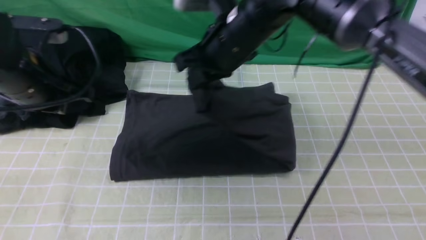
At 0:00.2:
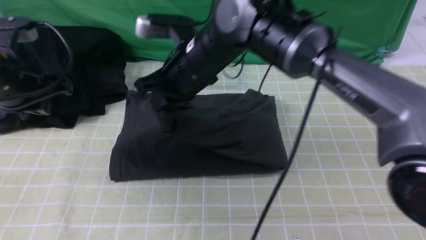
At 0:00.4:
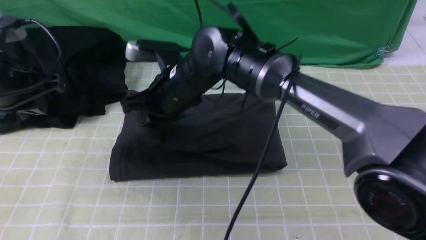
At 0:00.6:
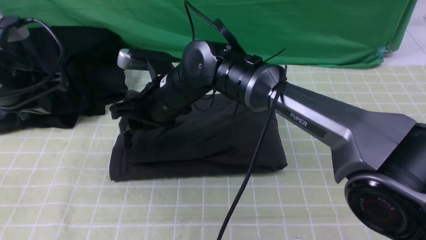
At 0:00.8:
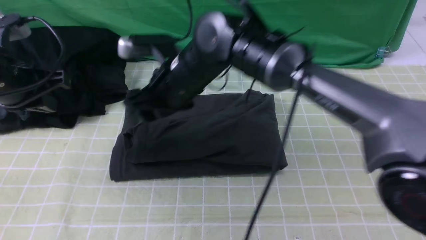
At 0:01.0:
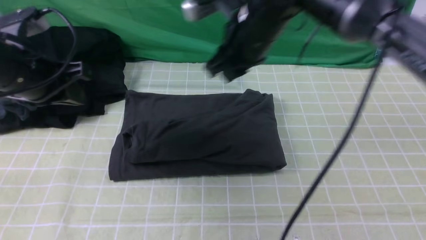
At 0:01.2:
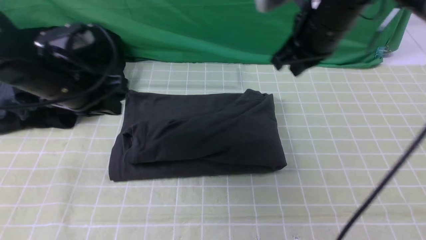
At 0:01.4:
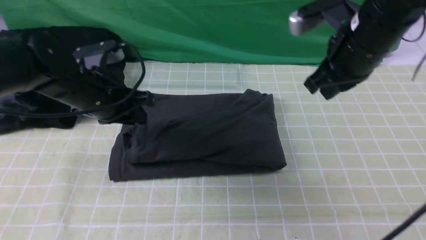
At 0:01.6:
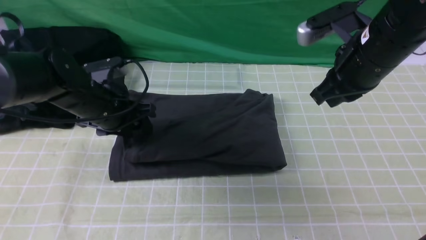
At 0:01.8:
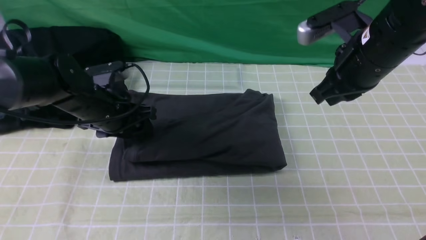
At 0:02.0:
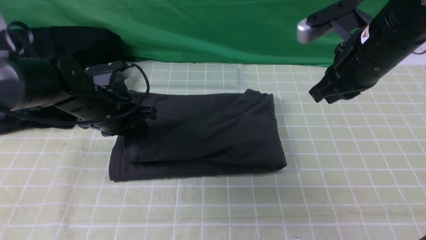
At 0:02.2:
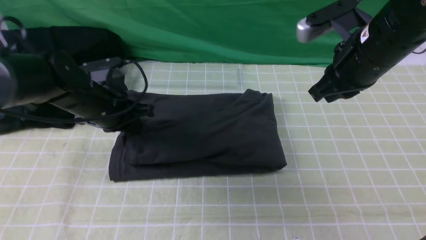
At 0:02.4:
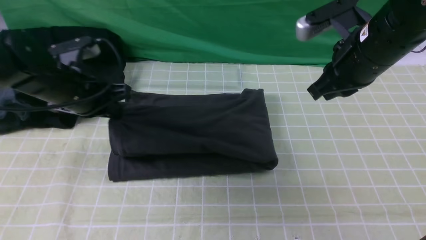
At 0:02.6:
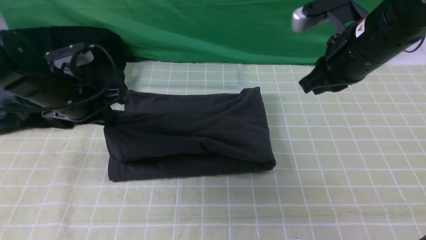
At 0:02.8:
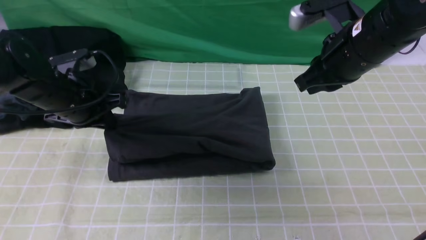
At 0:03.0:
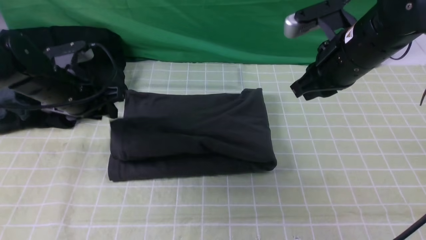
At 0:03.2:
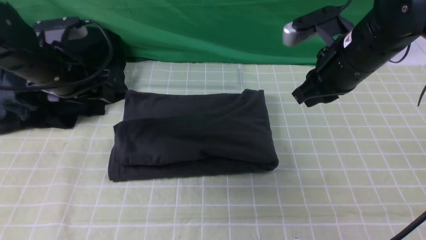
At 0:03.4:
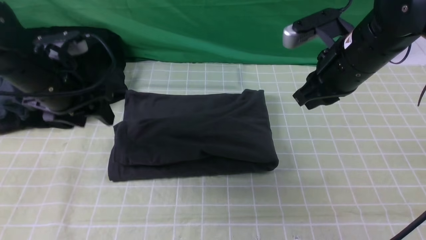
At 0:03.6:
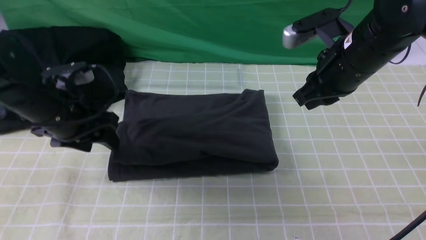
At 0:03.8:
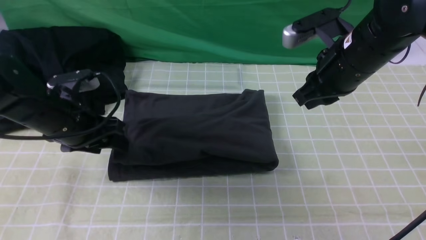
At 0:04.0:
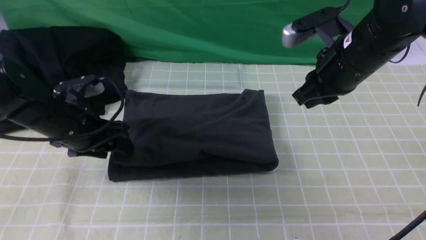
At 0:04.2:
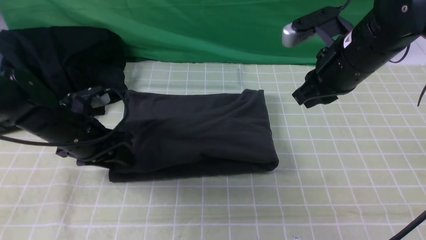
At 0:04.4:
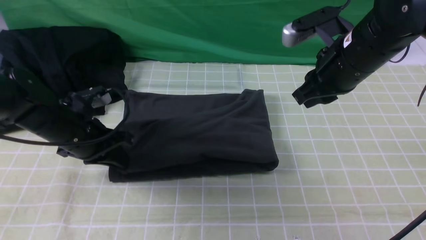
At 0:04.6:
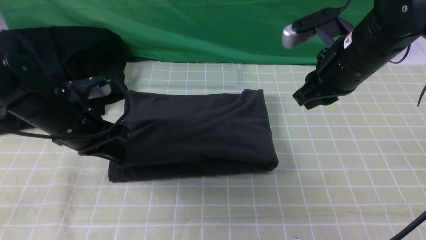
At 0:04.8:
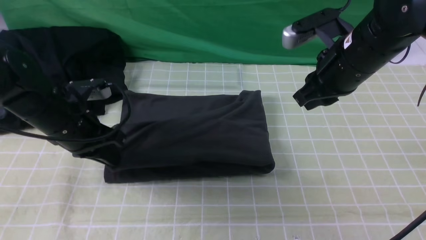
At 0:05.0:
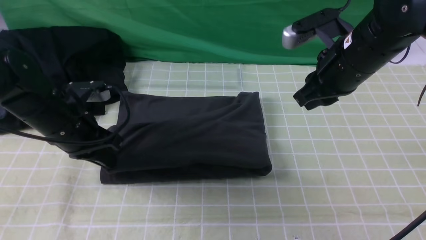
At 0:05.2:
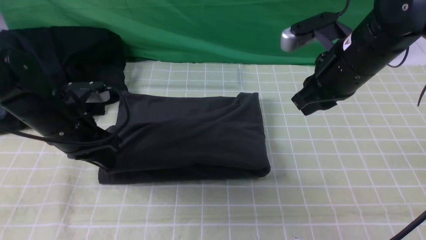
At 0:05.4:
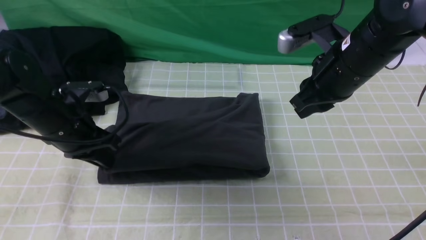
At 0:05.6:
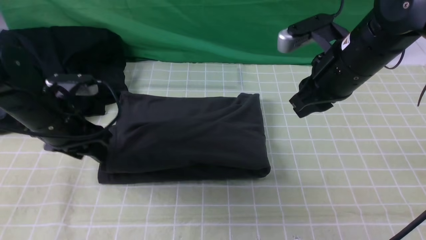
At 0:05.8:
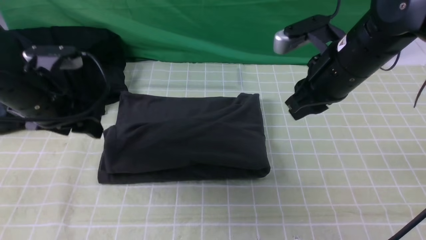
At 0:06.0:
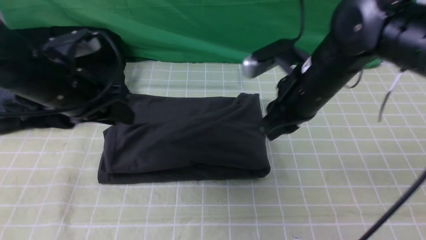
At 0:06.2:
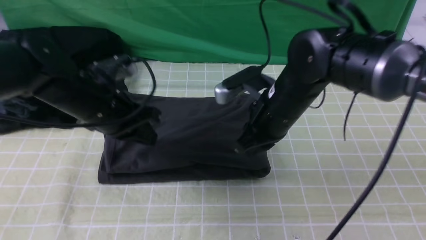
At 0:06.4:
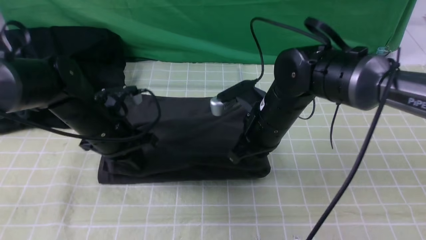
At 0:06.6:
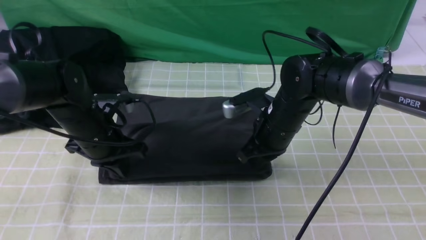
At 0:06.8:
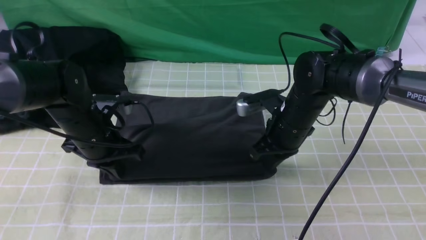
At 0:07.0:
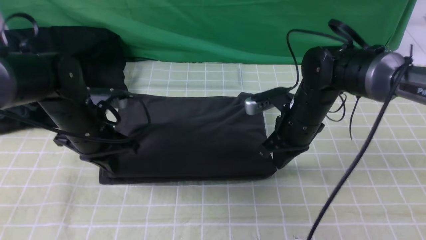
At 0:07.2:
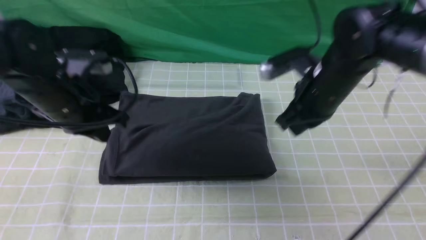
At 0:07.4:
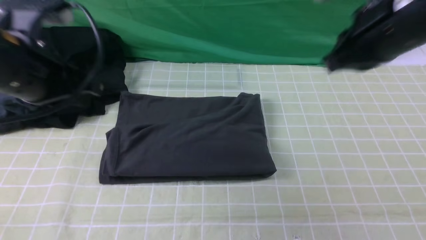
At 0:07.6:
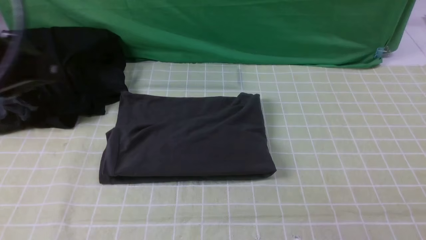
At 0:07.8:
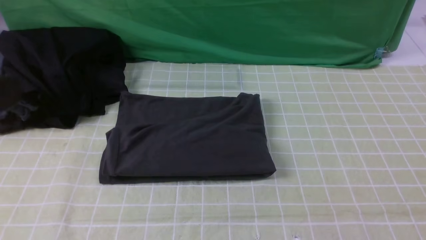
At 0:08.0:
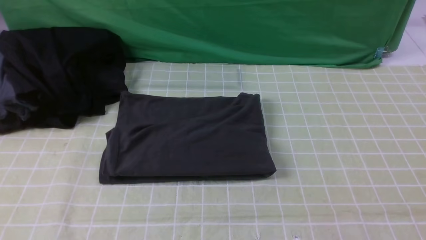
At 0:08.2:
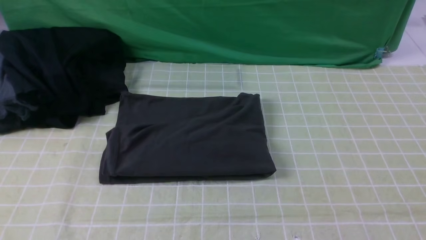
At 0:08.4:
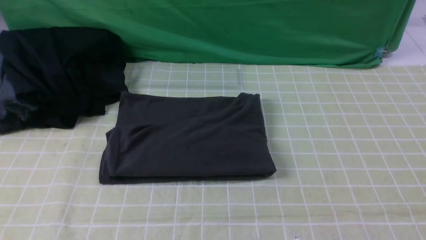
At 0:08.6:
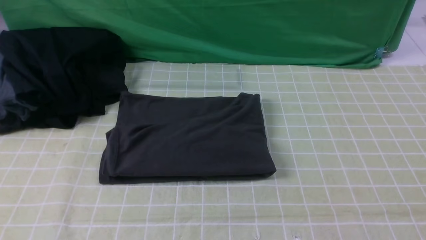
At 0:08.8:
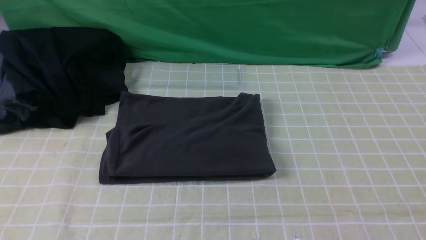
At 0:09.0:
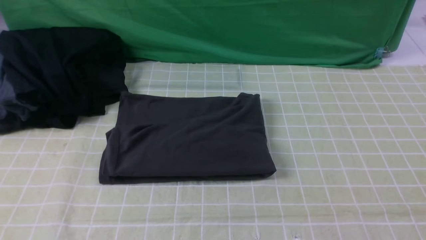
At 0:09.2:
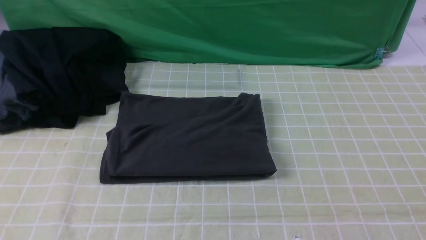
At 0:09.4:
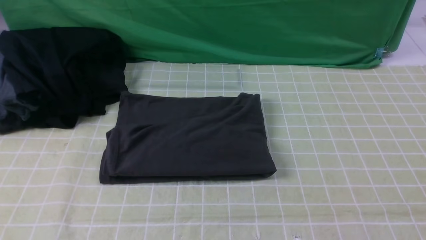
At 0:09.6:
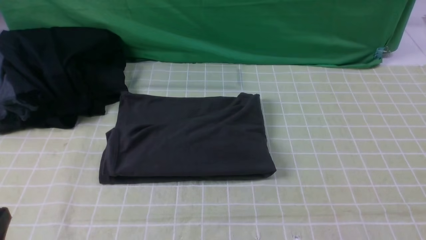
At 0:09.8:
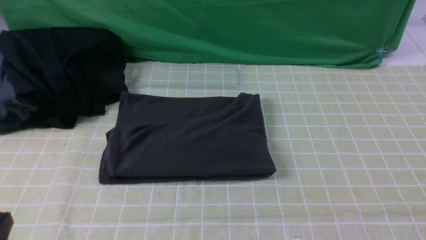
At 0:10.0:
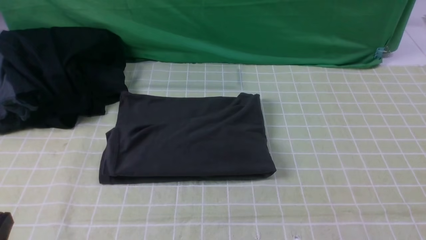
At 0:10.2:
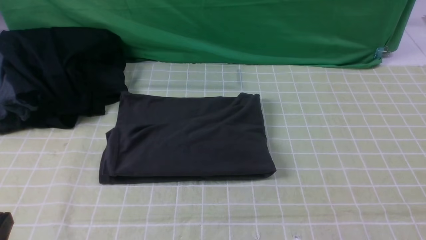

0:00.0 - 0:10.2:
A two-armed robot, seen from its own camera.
0:00.0 - 0:01.4: The right gripper moves to the right, approximately 15 cm, and opens, then closes again. The left gripper travels downward and to the right by some 10 cm, and opens.
0:01.4 - 0:03.0: The left gripper closes and opens again.
0:03.0 - 0:04.4: The left gripper travels downward by approximately 5 cm.
0:04.4 - 0:05.8: The left gripper is displaced upward by roughly 5 cm, and opens its fingers.
0:05.8 - 0:07.2: The right gripper moves about 10 cm downward and comes back, while the left gripper reaches about 10 cm downward, then returns, and closes its fingers.
0:07.2 - 0:08.8: The left gripper travels backward by about 30 cm. The right gripper heads backward and to the right, covering some 35 cm, and opens up.

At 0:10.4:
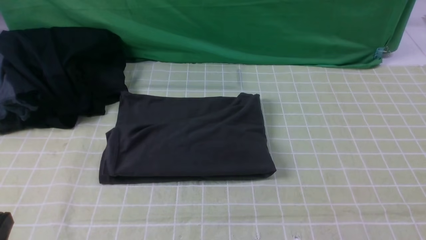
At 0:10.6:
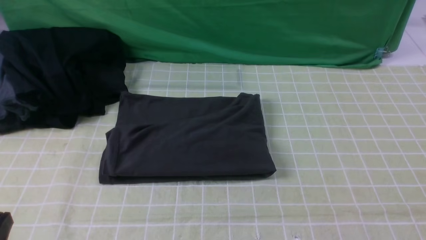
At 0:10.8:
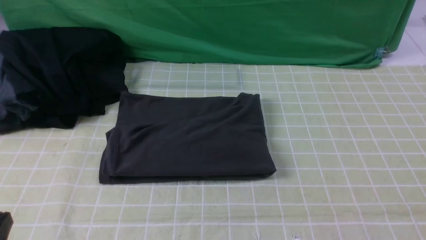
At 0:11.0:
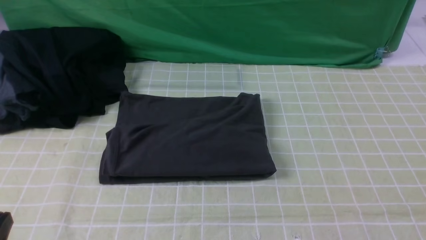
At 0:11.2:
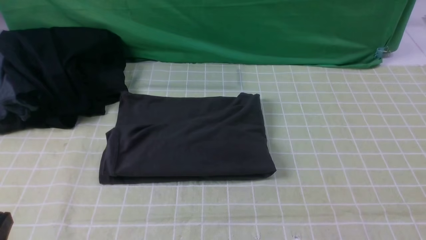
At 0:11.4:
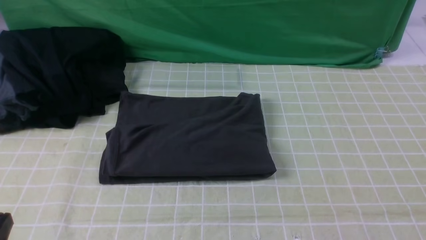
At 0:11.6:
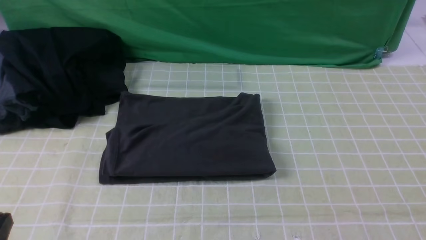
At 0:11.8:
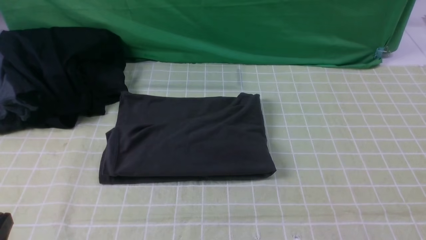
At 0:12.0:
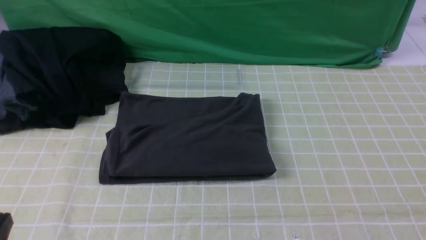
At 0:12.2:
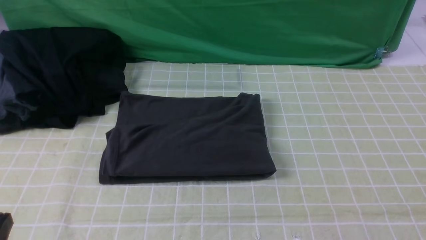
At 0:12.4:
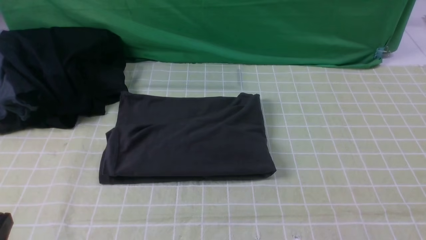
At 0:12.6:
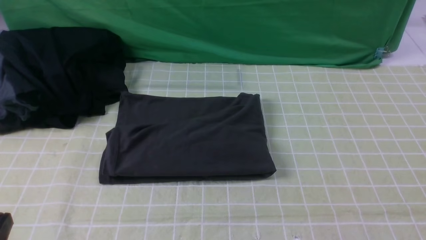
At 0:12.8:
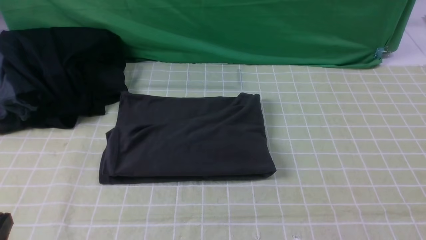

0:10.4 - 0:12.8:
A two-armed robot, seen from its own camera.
0:11.6 - 0:12.8: Both grippers stay put.
